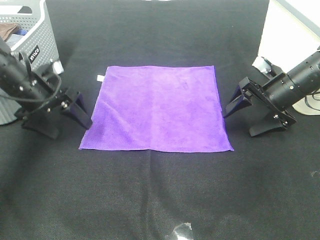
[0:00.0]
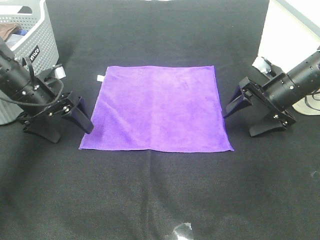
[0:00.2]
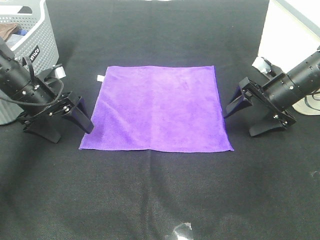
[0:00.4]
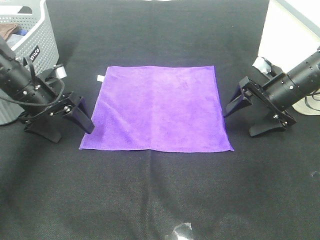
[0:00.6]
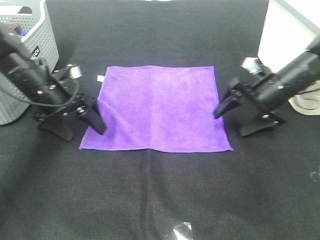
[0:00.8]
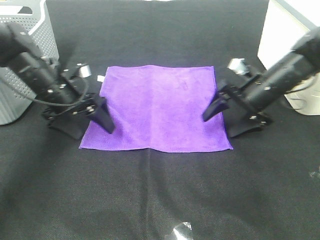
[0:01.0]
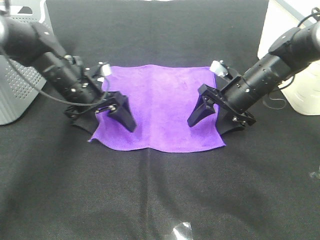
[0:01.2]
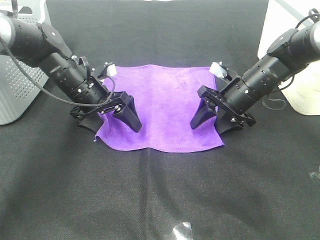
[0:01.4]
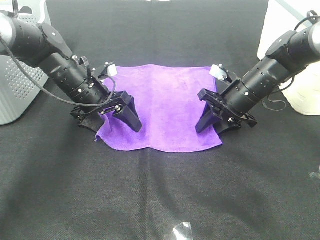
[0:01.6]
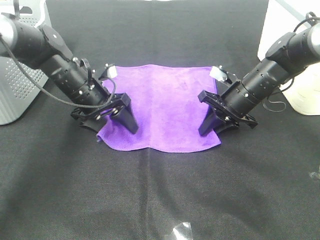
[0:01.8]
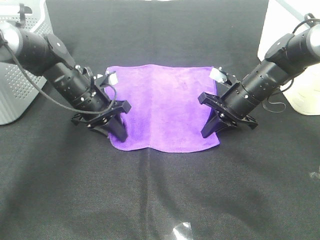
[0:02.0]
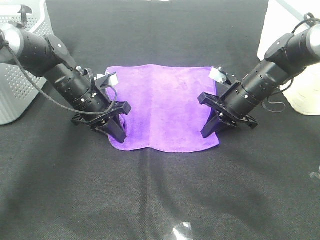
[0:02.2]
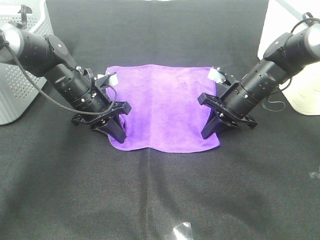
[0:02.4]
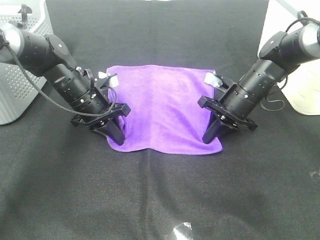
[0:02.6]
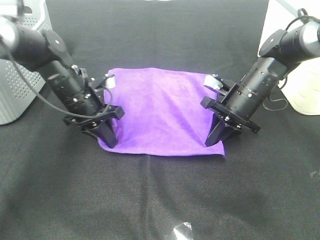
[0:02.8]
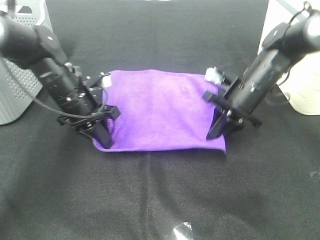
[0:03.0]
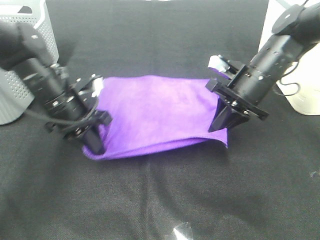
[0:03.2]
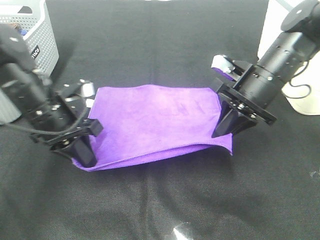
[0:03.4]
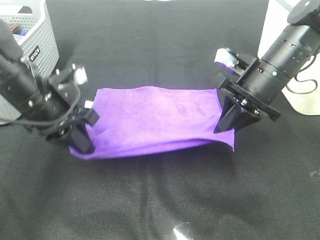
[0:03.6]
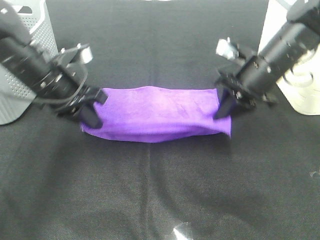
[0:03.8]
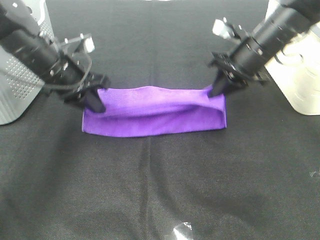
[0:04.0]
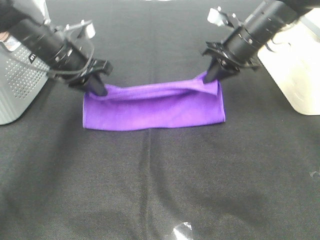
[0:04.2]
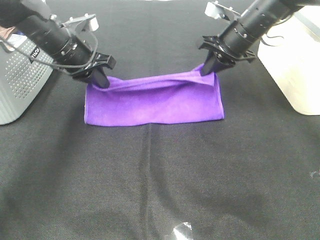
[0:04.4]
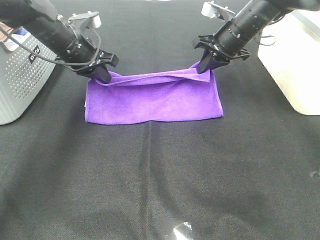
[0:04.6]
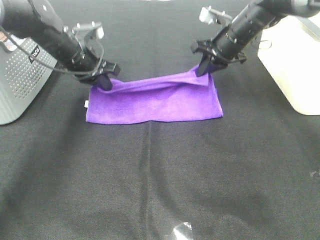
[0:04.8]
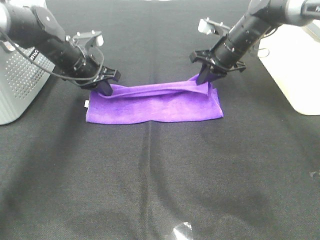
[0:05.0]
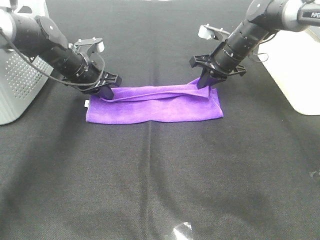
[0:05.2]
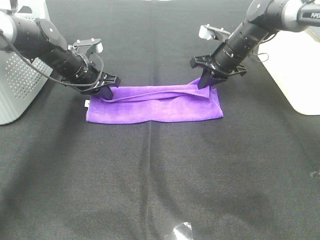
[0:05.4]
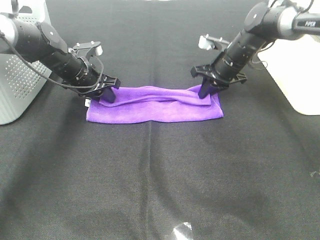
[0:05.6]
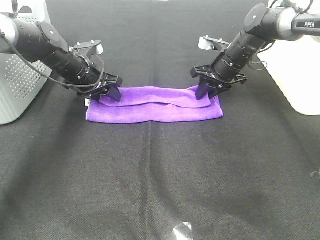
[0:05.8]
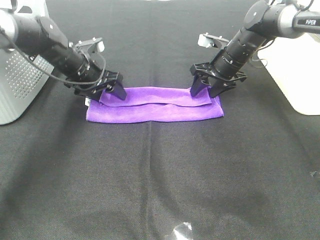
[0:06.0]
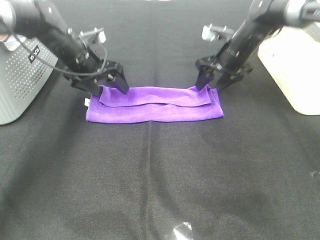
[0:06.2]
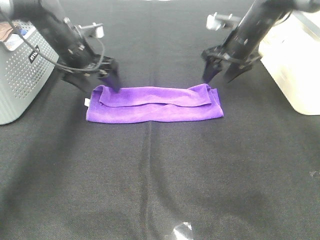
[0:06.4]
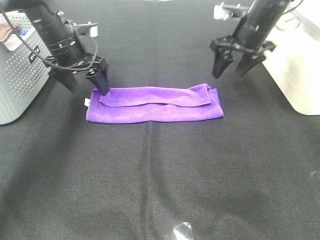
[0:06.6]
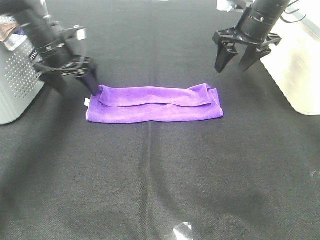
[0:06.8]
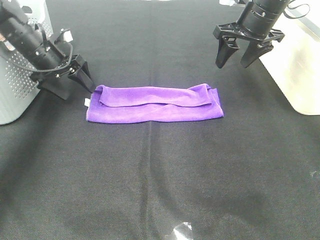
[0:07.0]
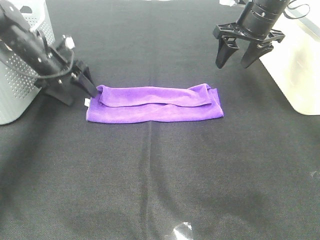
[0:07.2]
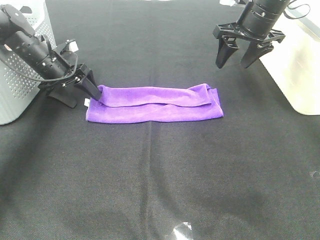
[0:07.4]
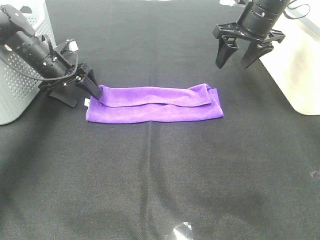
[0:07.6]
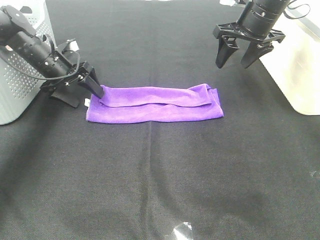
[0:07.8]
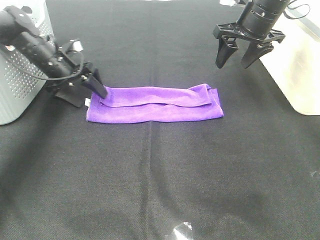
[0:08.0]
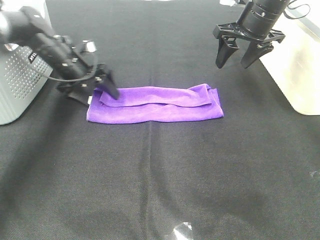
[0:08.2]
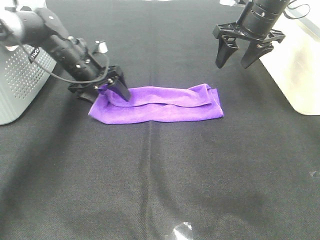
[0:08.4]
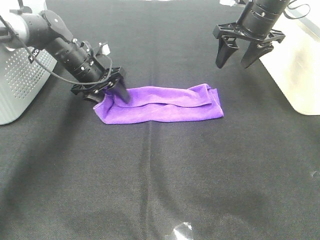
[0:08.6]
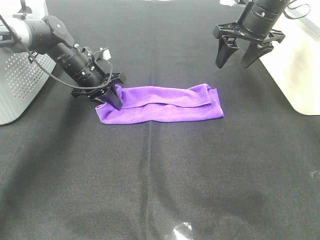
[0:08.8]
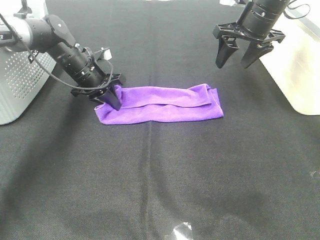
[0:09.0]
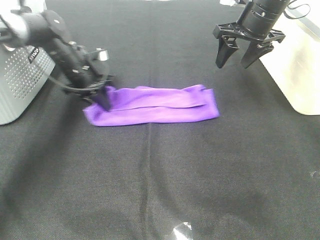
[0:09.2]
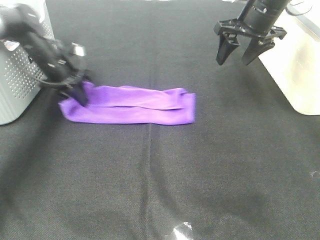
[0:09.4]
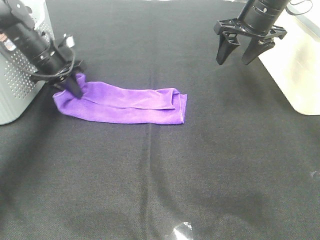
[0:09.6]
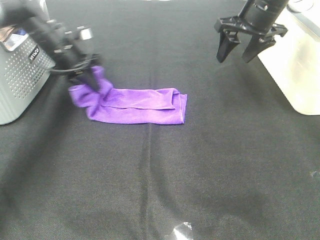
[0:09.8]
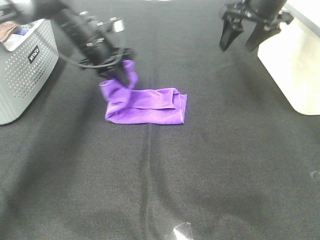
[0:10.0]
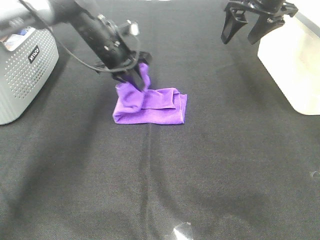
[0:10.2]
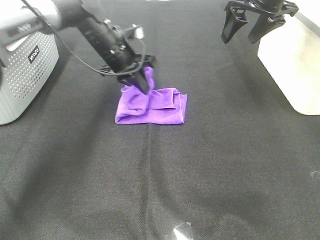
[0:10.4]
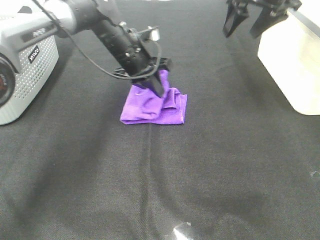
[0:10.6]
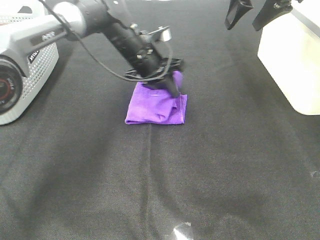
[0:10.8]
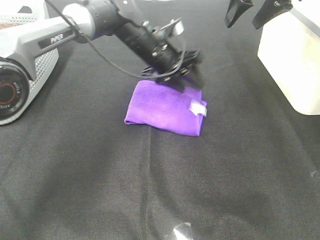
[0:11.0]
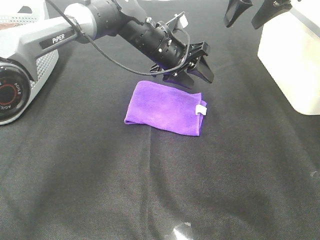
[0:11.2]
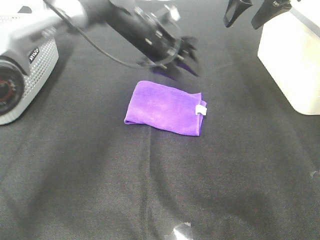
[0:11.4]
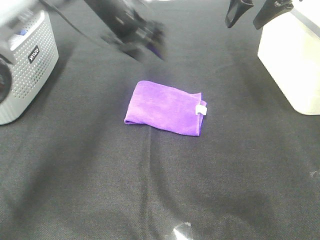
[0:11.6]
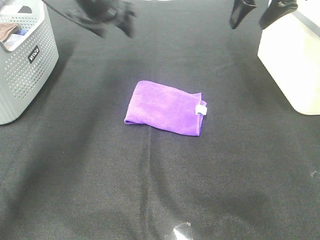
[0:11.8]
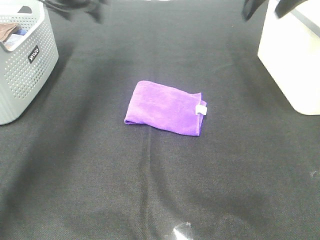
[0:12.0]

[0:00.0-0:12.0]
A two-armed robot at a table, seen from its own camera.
Task of the whole recording: Fold towels.
Step, 0:00.0 to 0:02.0: Left hand: grab the bottom left corner of purple towel.
Step, 0:00.0 to 0:02.0: Right hand: grab the bottom right corner of purple towel.
Step, 0:02.2 to 0:05.4: Left hand: fold the purple towel up.
Step, 0:02.2 to 0:05.4: Right hand: fold the purple towel up.
Step, 0:05.6 to 0:10.8: Left hand: fold the purple towel from left to right.
0:00.0 to 0:01.6: The right gripper heads to the left, covering approximately 10 cm, and closes its fingers. Meanwhile the left gripper moves to the right, roughly 10 cm.
0:01.6 to 0:03.0: The right gripper closes up. Meanwhile the left gripper closes its fingers.
0:03.0 to 0:04.4: The grippers both shift forward and upward by approximately 10 cm.
0:04.4 to 0:06.0: The grippers both shift downward by some 5 cm. The left gripper opens; the right gripper opens up.
0:06.0 to 0:07.6: The left gripper moves to the left, about 5 cm. Meanwhile the right gripper heads upward, covering about 10 cm.
0:07.6 to 0:09.0: The left gripper heads to the right, covering roughly 10 cm, and closes.
0:09.0 to 0:10.4: The right gripper goes about 5 cm upward, while the left gripper heads to the right and upward, covering approximately 10 cm.
0:10.4 to 0:12.0: The left gripper travels upward and to the left by about 20 cm, and opens its fingers. The right gripper goes some 5 cm upward.

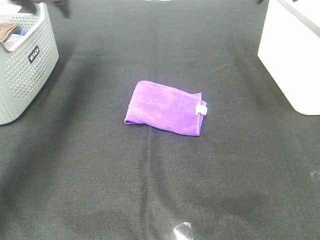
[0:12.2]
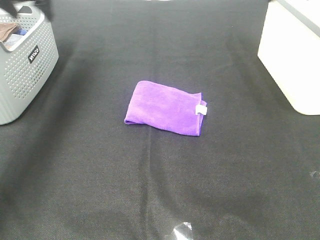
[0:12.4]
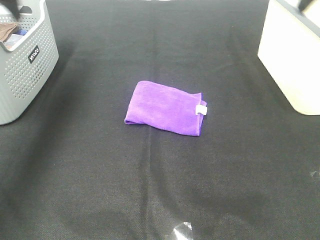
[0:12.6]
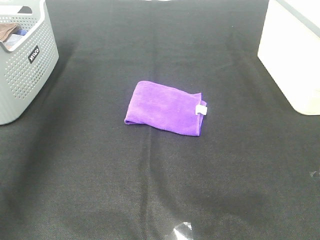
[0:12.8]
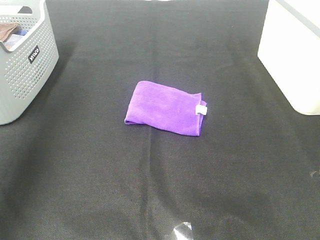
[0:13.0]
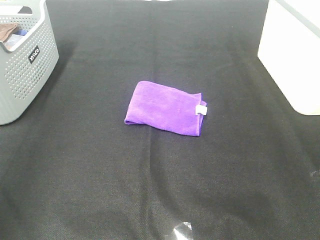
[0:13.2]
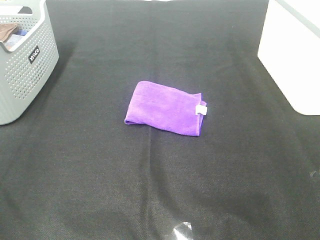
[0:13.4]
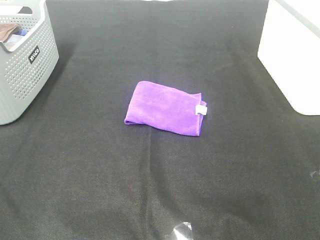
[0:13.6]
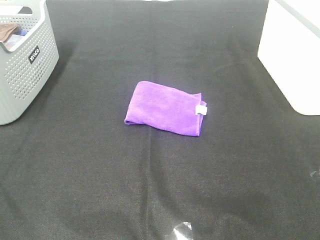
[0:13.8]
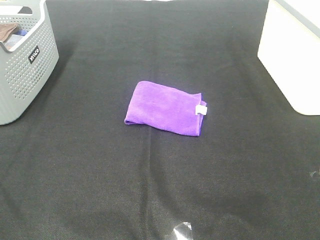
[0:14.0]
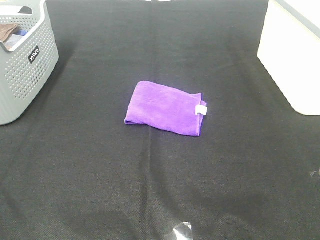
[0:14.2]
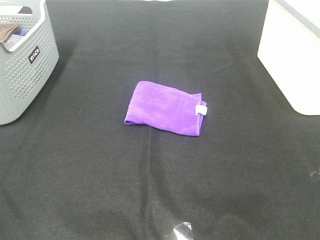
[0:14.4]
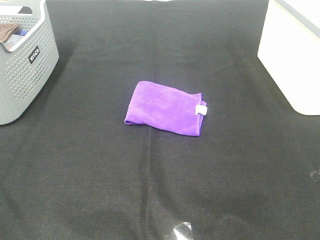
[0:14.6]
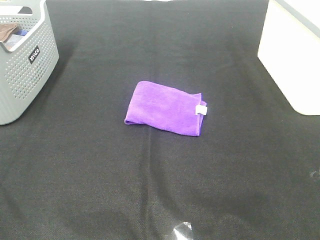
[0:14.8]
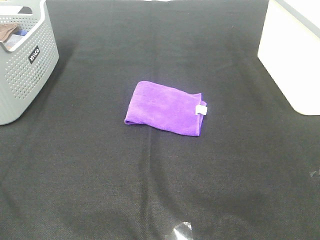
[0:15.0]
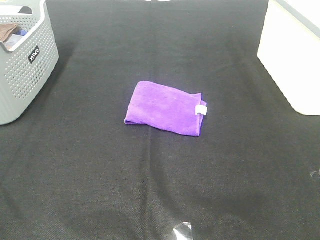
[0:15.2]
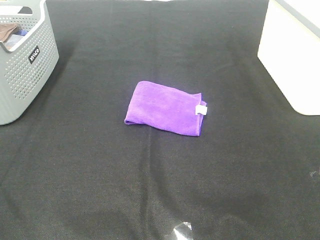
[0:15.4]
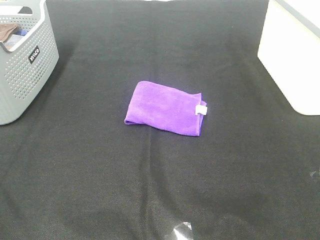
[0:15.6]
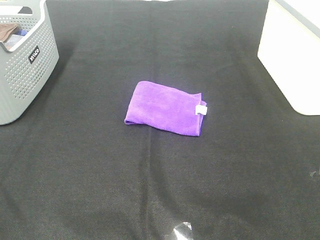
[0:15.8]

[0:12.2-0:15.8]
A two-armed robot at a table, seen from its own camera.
Task of the whole recording: Fold towels.
0:12.2 to 0:14.0: The grippers both shift backward by about 50 cm.
